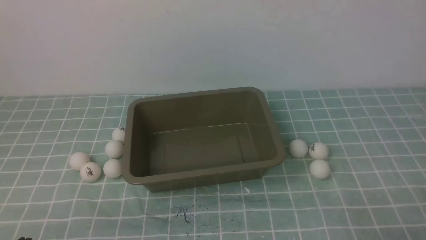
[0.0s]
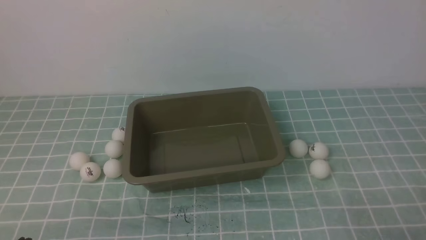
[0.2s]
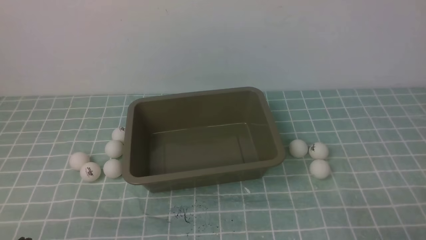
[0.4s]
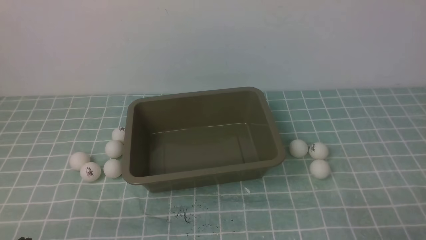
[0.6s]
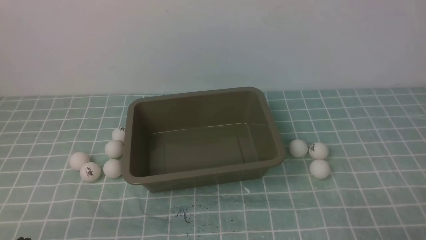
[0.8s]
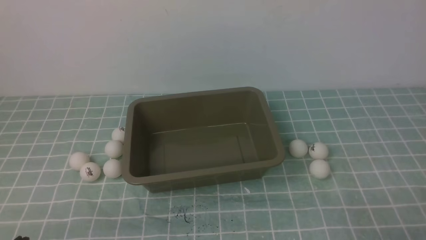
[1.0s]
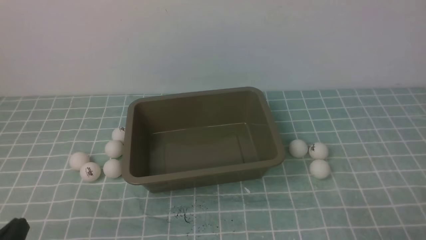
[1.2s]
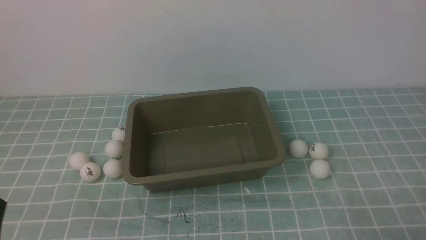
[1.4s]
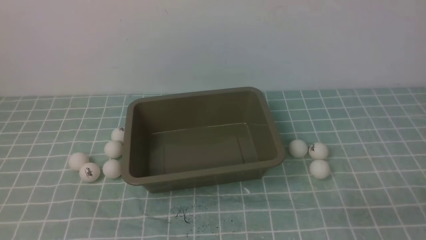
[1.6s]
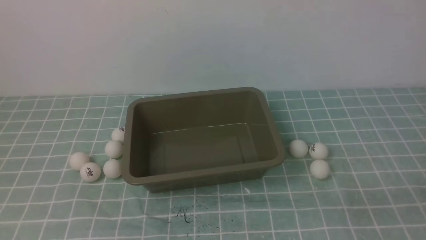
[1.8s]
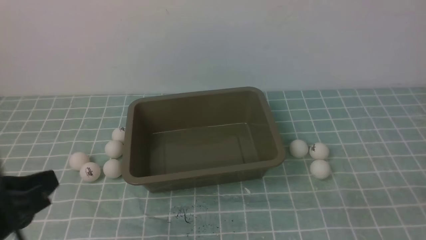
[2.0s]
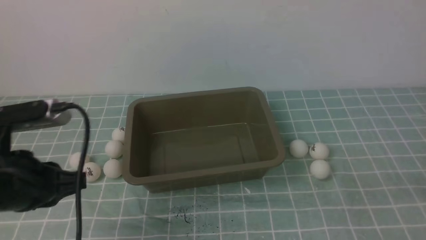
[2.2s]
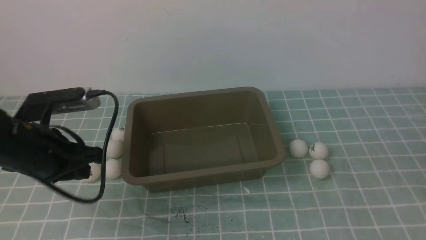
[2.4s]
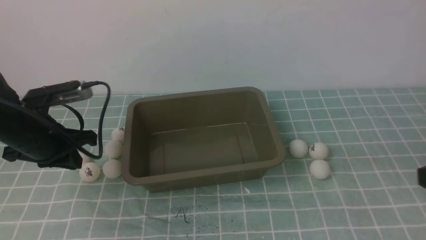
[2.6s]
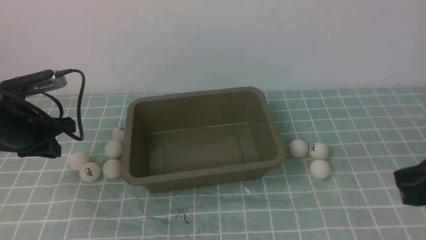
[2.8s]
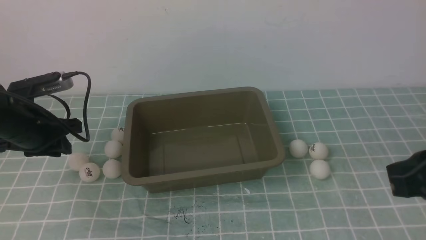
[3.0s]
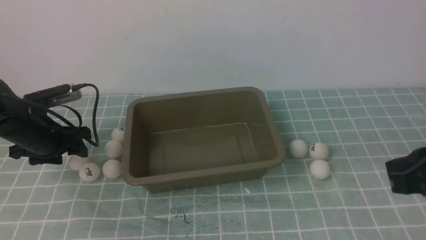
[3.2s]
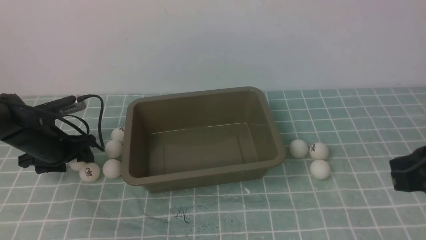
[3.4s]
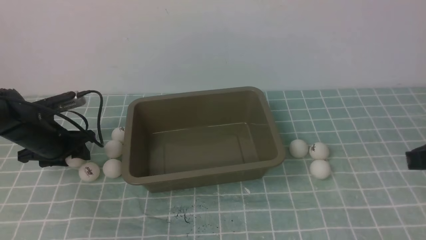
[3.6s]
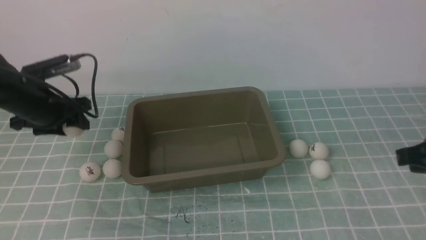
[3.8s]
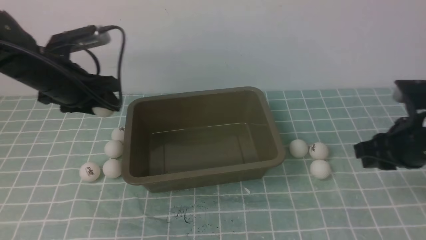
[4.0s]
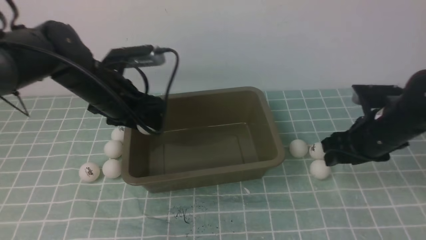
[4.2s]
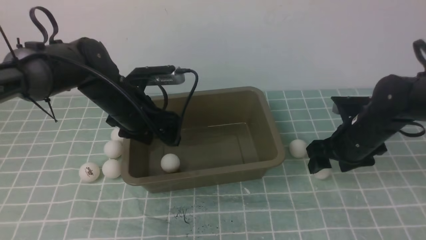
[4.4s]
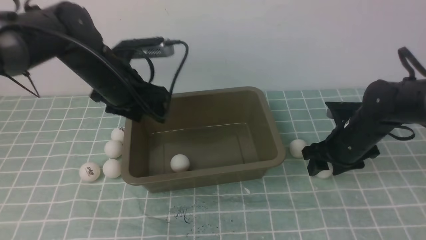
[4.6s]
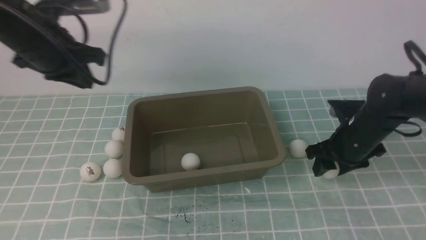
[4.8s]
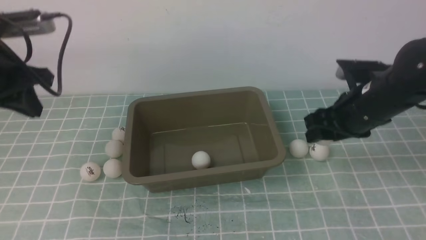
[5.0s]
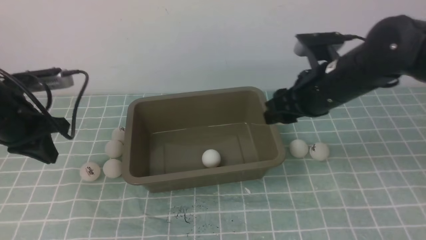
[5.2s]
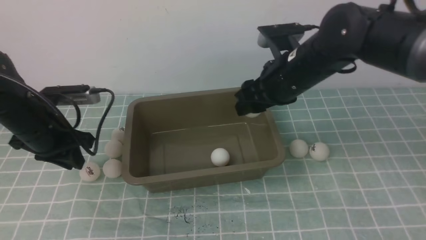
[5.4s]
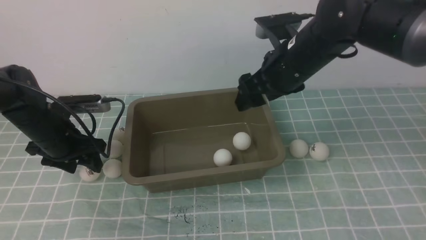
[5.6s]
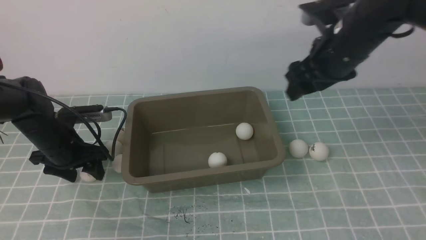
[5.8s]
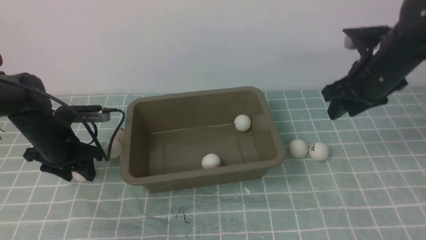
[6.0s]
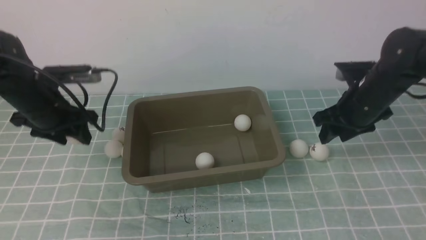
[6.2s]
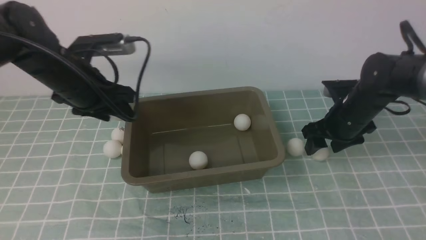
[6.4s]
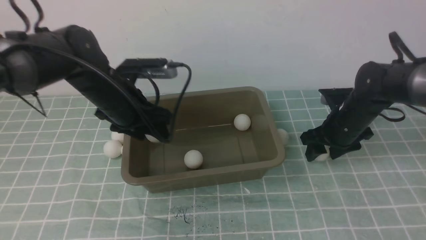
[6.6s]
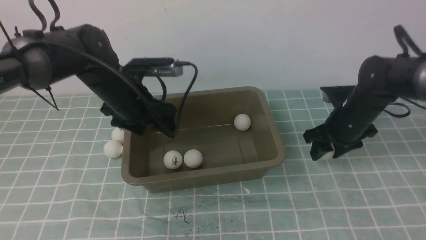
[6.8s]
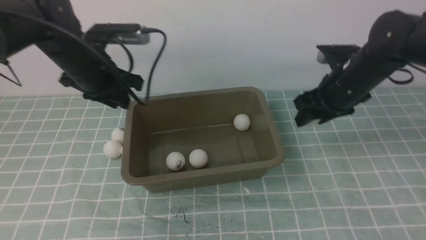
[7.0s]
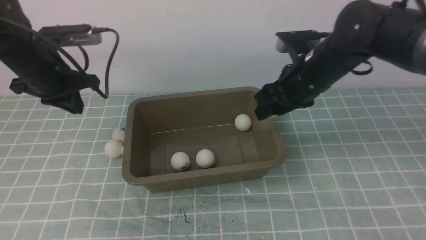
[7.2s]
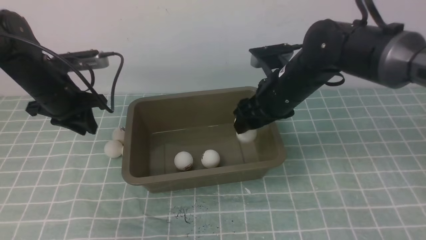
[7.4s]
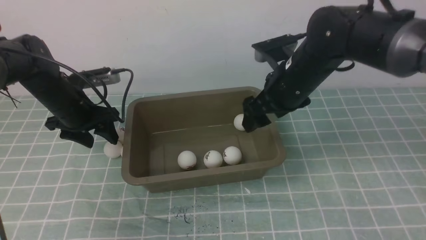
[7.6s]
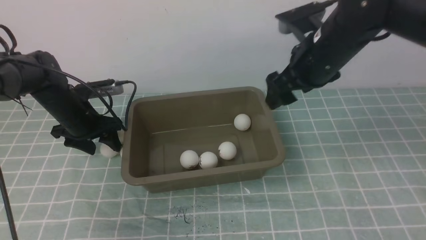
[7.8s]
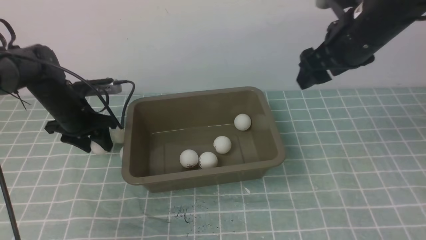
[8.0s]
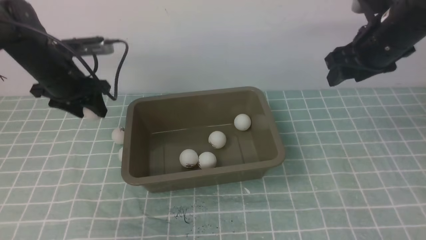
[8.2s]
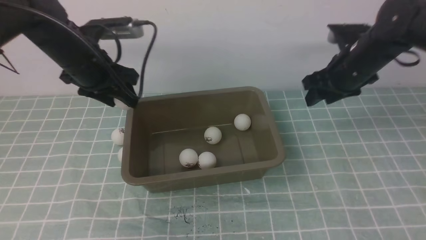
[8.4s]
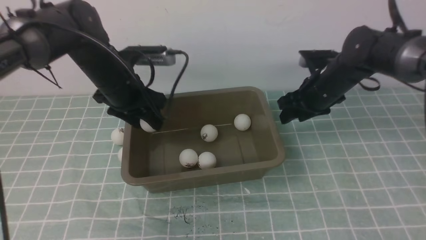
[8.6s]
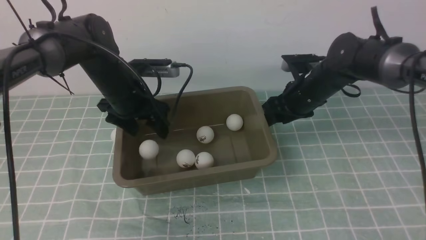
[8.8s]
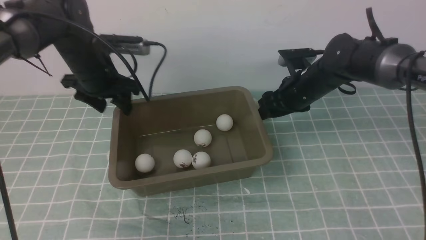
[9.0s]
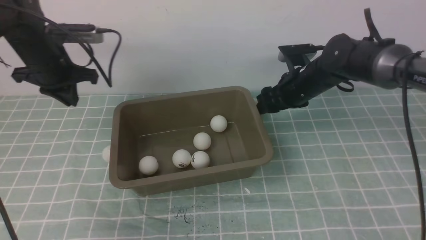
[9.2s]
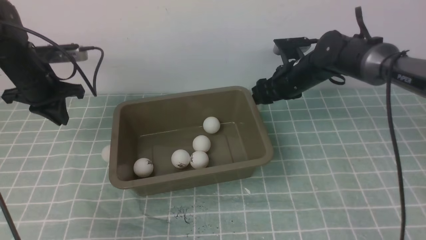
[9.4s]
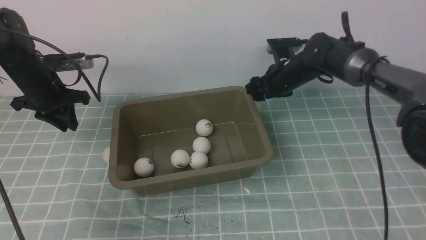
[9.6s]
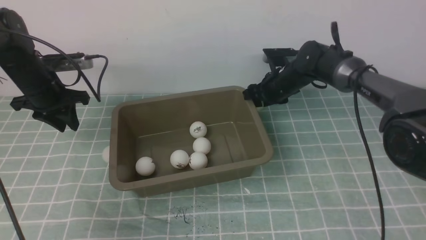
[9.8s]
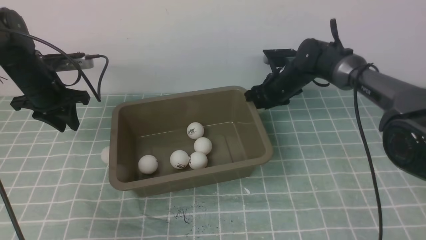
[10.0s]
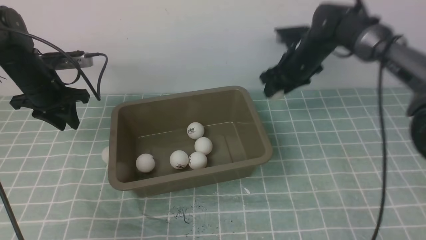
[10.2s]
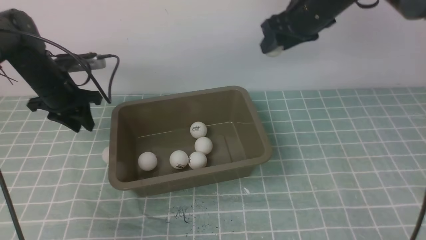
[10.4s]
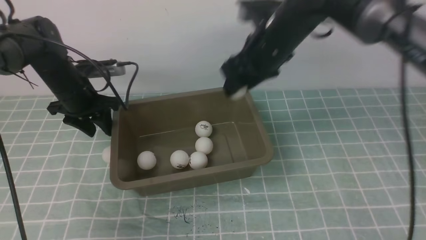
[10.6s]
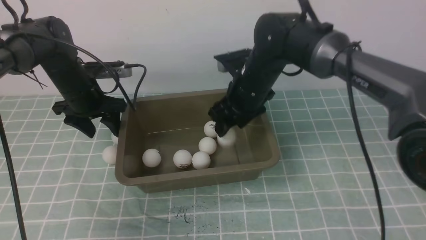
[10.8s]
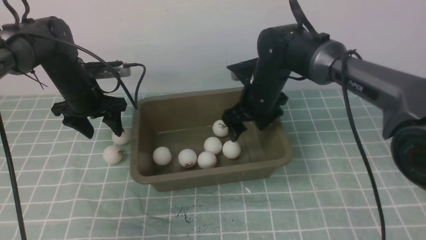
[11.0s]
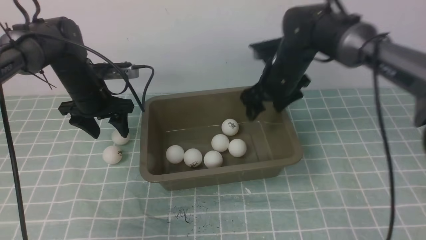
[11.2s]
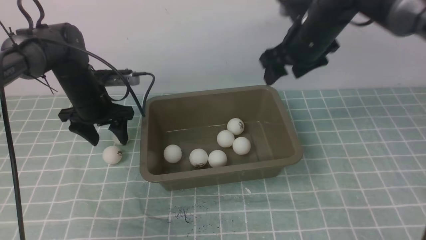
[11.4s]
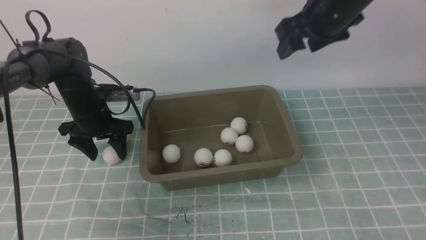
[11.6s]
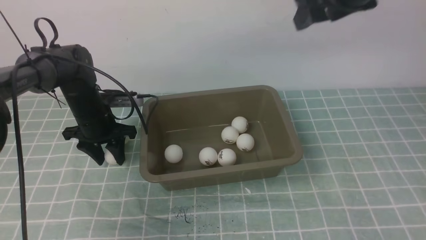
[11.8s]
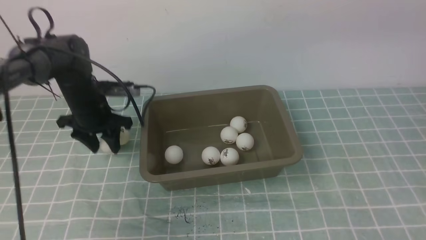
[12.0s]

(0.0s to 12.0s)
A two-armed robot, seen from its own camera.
Step, 0.0s - 3.6s: use the left arm to clamp the table tennis ball closest to it.
Step, 3.8s - 4.4s: use the left arm to put the table tennis ball into the box.
Step, 4.6s - 4.8s: use the right arm to clamp the table tennis ball closest to it.
Step, 5.0s - 5.4s: use the right arm to put the table tennis ball into the box.
Step, 5.6s - 6.0s: use the left arm to clamp the table tennis ball closest to it.
Step, 6.2s - 6.6s: use the left arm to put the table tennis ball into the box.
Step, 7.0s - 7.4s: use the right arm to put the table tennis ball into the box.
Step, 7.6s - 8.0s: use the left arm to clamp the table tennis ball closest to it.
Step, 8.2s - 8.8s: use the left arm to put the table tennis ball into the box.
Step, 9.0s - 10.0s: use the right arm to clamp the table tennis ball closest to it.
Step, 10.2s - 10.8s: use the right arm to put the table tennis ball into the box.
Step, 11.0s - 11.8s: use the left arm to clamp the table tennis ball closest to it.
1.6s - 3.0s: The left gripper goes some 30 cm forward; the right gripper heads upward, forward and to the left, covering approximately 15 cm.
3.0s - 4.4s: The right gripper shifts approximately 20 cm forward and downward, and opens its fingers. Meanwhile the left gripper goes some 15 cm to the right, and opens.
4.4s - 6.0s: The left gripper is displaced to the left and downward by some 15 cm, and closes, then opens again. The right gripper shifts roughly 10 cm upward.
6.0s - 7.6s: The right gripper heads to the left, covering approximately 10 cm, and reaches approximately 10 cm downward, then returns. The left gripper goes to the right and returns, approximately 10 cm each way, and closes, then opens again.
7.6s - 9.0s: The left gripper travels to the right by about 5 cm. Meanwhile the right gripper moves downward and forward, approximately 10 cm.
9.0s - 10.4s: The left gripper moves to the left, about 10 cm, and closes, while the right gripper shifts approximately 10 cm upward.
10.4s - 12.0s: The right gripper travels upward and backward by approximately 20 cm. The left gripper goes approximately 5 cm to the right.

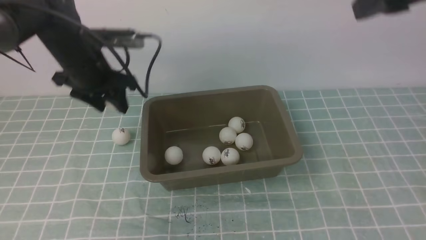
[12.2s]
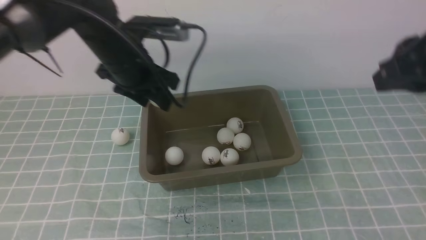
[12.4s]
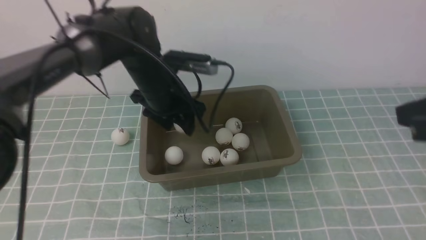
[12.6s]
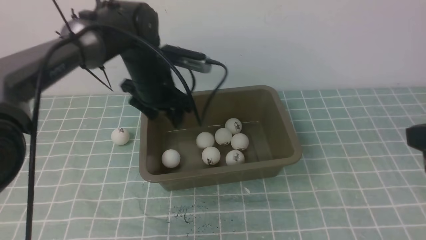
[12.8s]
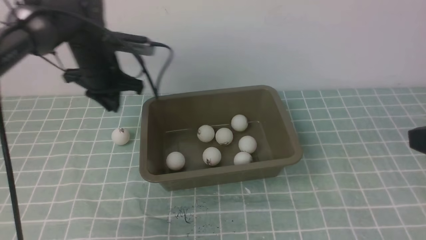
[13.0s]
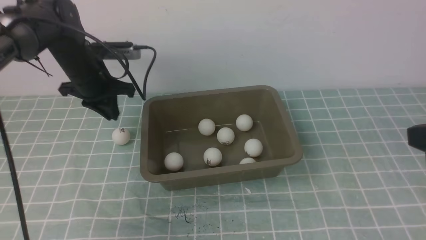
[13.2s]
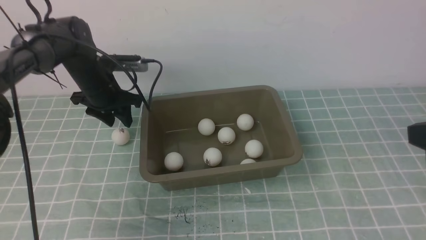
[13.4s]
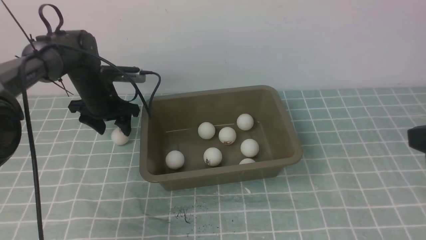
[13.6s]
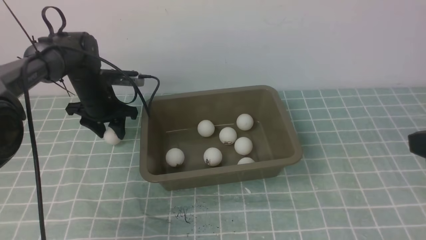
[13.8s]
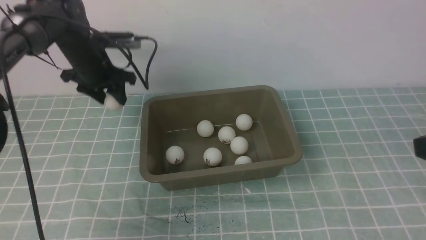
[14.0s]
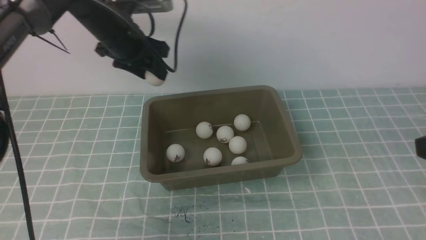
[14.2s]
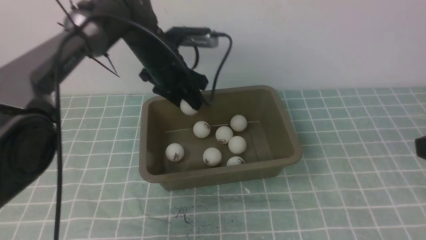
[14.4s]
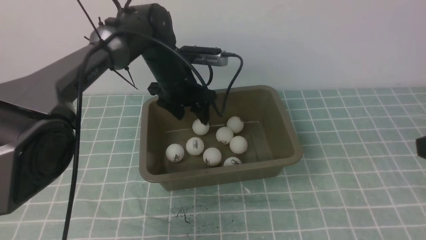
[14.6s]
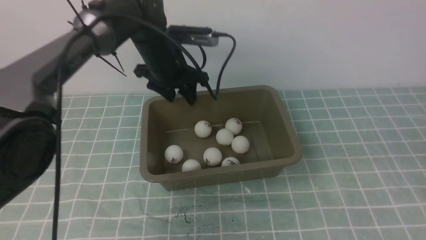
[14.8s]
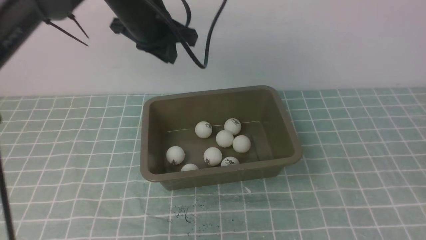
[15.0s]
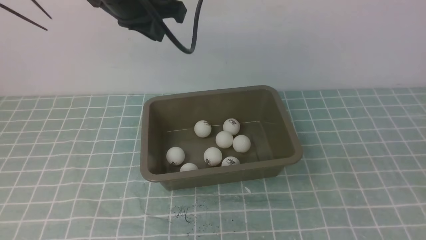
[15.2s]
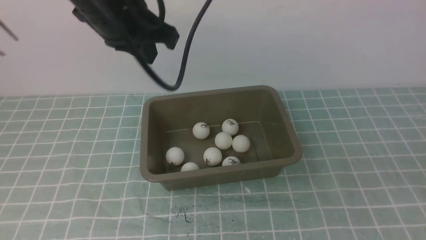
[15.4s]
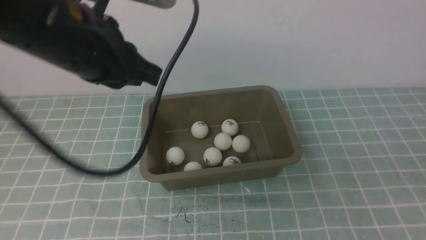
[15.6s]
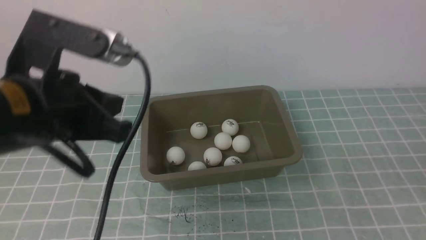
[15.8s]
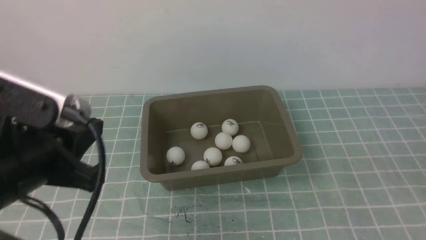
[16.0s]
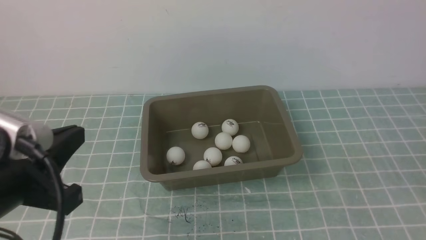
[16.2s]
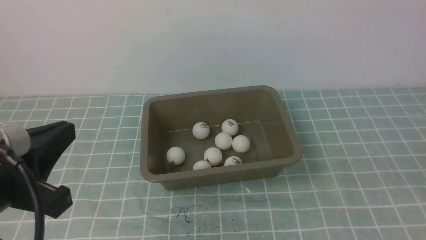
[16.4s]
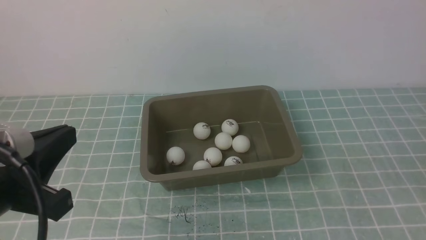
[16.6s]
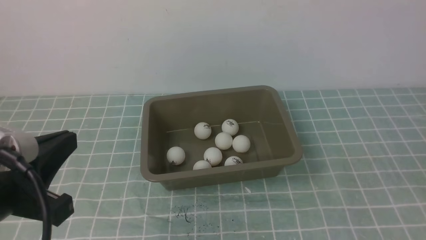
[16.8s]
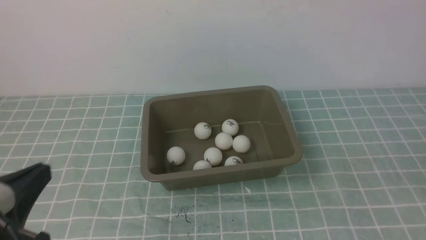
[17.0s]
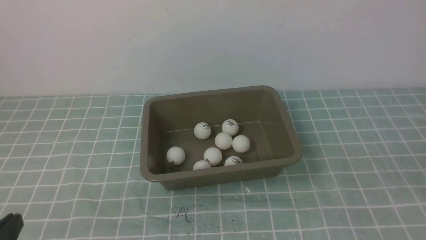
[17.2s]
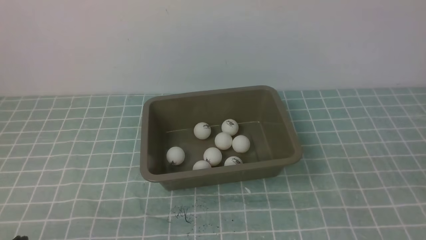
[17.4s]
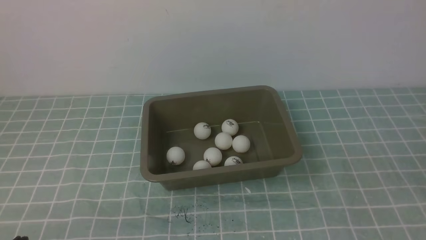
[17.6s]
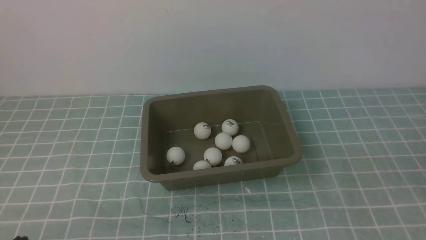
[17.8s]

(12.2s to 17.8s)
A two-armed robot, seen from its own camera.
Step, 12.2s - 12.6s: use the left arm to put the table tennis ball into the box.
Step, 12.8s - 13.6s: use the left arm to clamp the table tennis ball closest to it.
Step, 14.0s - 14.6s: use the left arm to put the table tennis ball into the box.
12.2s - 13.6s: The right gripper travels backward and downward by roughly 20 cm, and closes its fingers. The left gripper is displaced downward by about 5 cm, travels to the right and back again, roughly 10 cm each way, and closes and opens again.
13.6s - 15.0s: The right gripper goes some 5 cm backward; the left gripper moves upward and to the right, roughly 20 cm.
15.0s - 16.4s: The right gripper shifts by some 5 cm, while the left gripper moves backward, approximately 30 cm, and closes its fingers.
16.4s - 17.8s: The left gripper is displaced downward and backward by approximately 15 cm.
